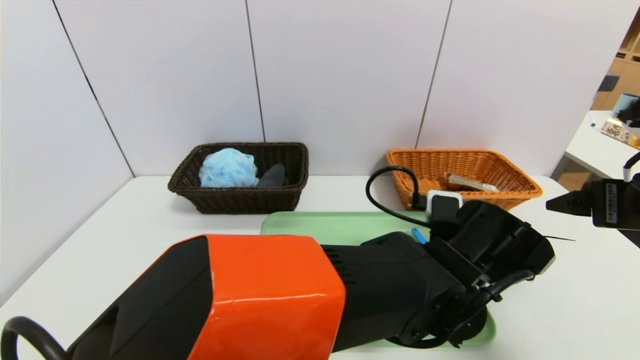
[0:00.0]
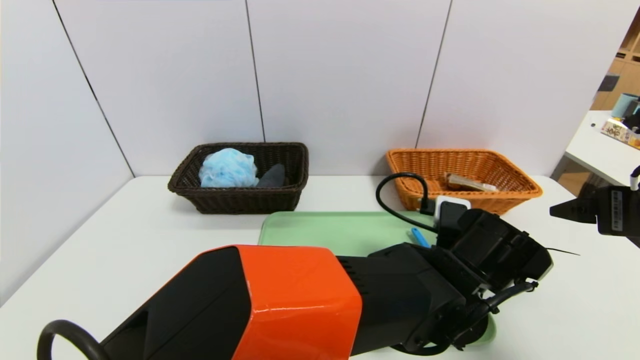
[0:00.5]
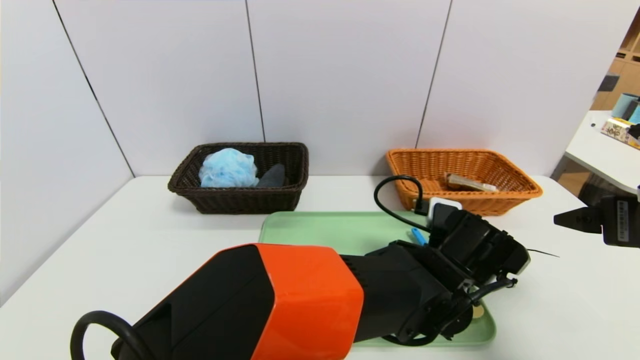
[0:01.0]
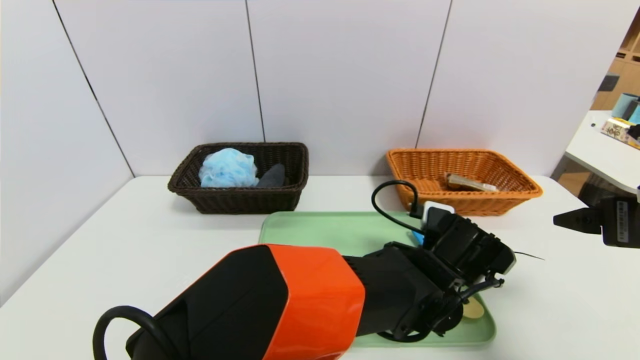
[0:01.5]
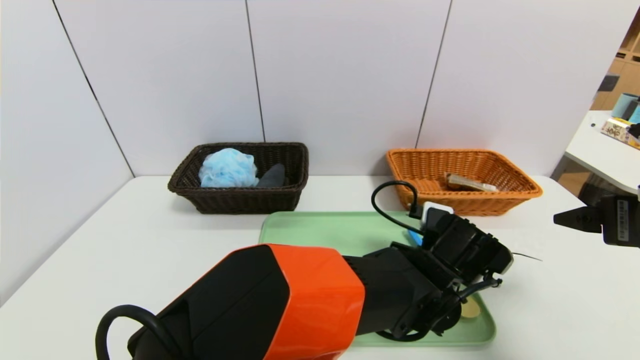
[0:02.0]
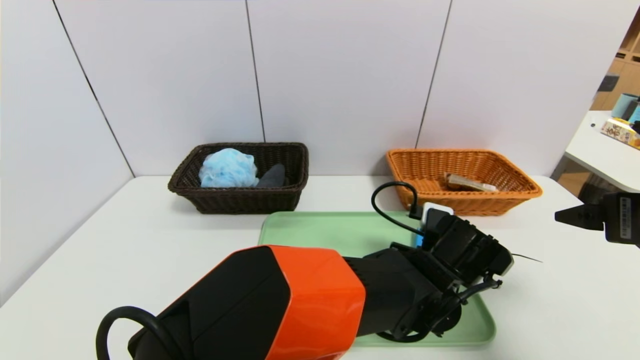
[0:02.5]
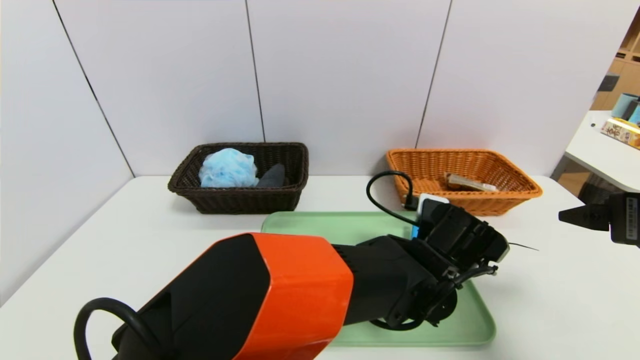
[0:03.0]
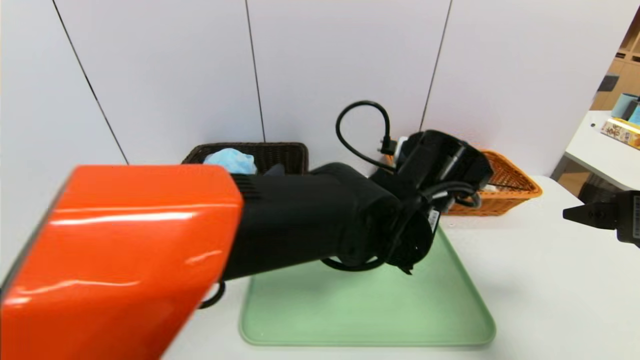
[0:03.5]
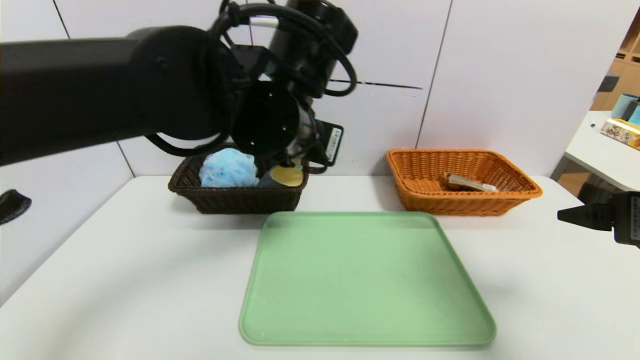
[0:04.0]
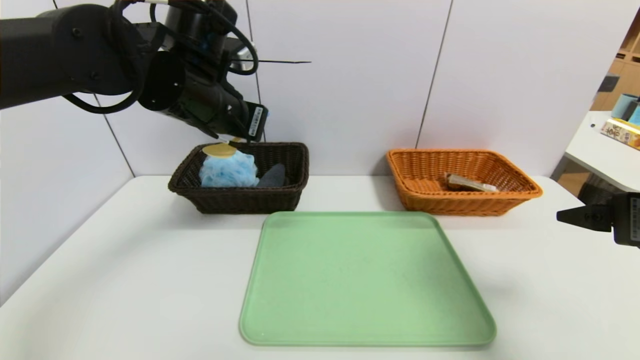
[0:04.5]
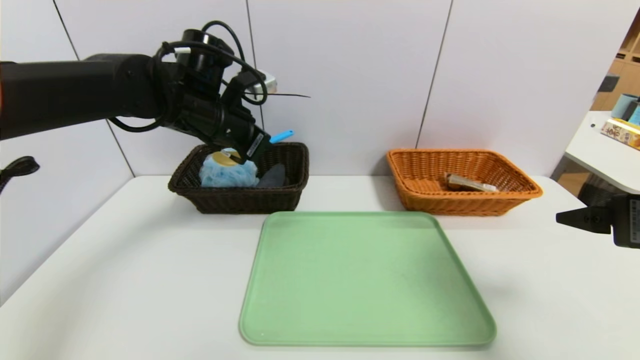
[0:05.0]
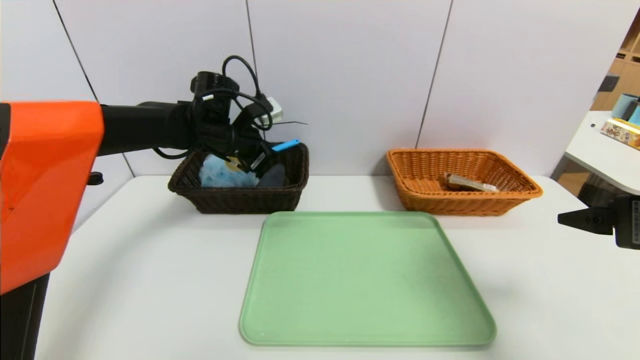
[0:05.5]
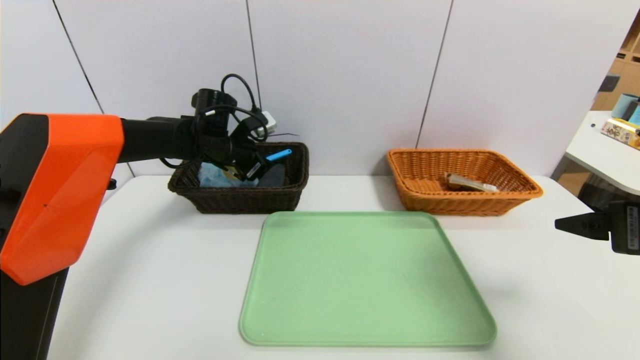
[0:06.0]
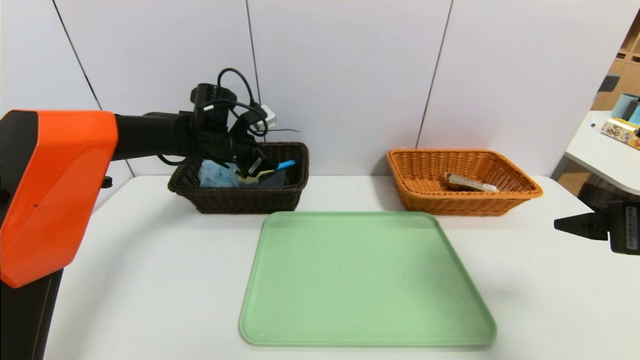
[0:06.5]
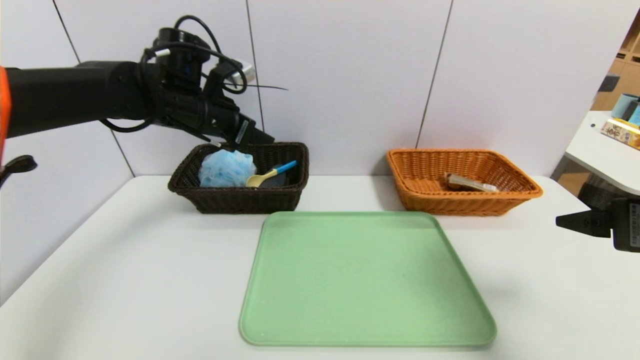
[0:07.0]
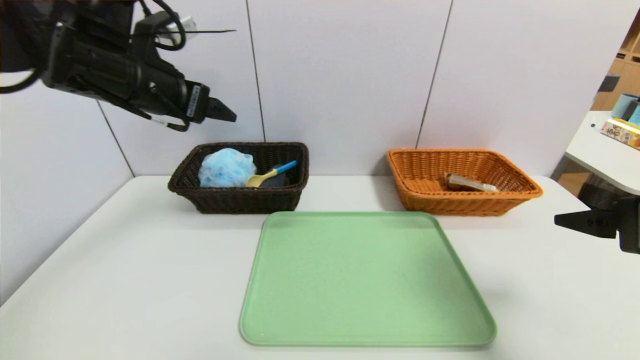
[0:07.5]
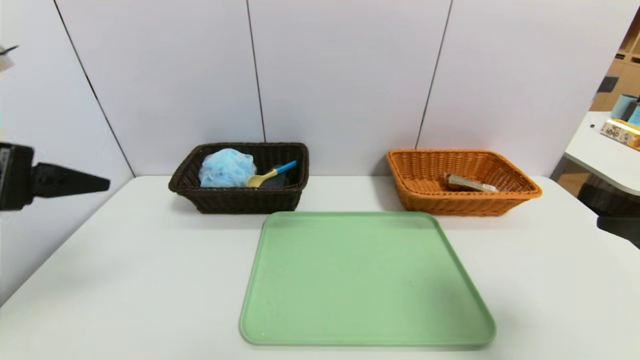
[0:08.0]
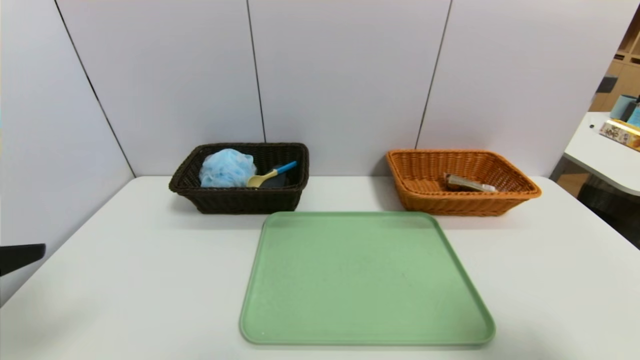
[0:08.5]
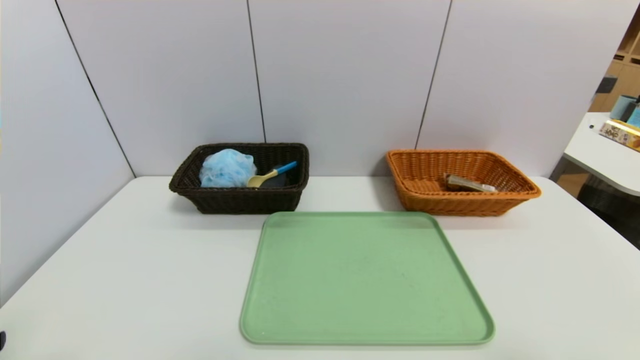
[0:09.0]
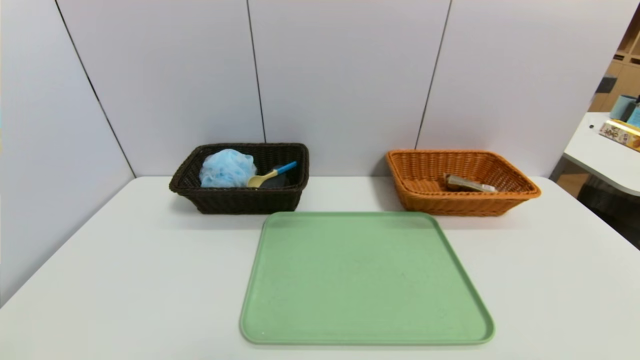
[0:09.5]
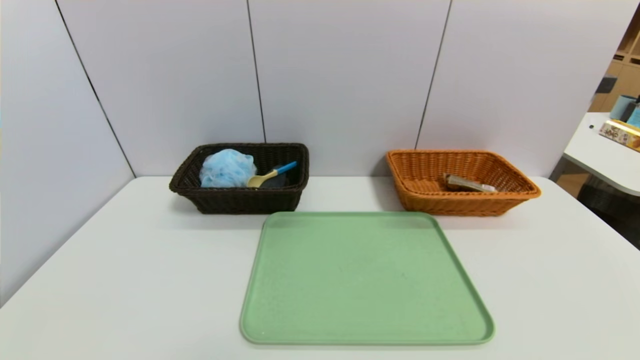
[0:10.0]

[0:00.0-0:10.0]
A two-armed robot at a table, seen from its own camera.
Task of the whole recording: place the food in the right basket with the right gripper, and place the non food items in the left basket with the left gripper.
Step, 0:00.0 to 0:06.5: Grasp the spoon and put it in the left basket.
0:00.0 to 0:02.0: The left gripper ends up some 5 cm from where it was.
0:02.0 to 0:04.0: The left gripper travels upward and to the left by approximately 25 cm, and closes up.
0:04.0 to 0:06.0: The left gripper goes approximately 25 cm forward, to the left and downward.
0:06.0 to 0:08.0: The left gripper heads backward and upward, covering approximately 35 cm, and opens its fingers. The right gripper travels backward by about 5 cm.
0:08.0 to 0:10.0: The two grippers go about 20 cm backward and downward.

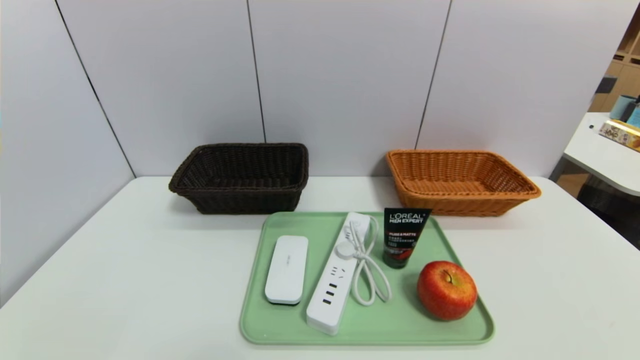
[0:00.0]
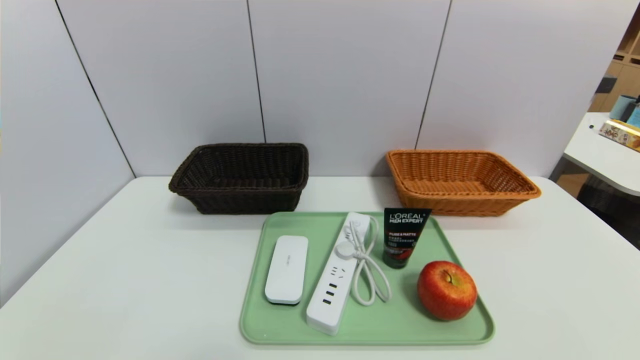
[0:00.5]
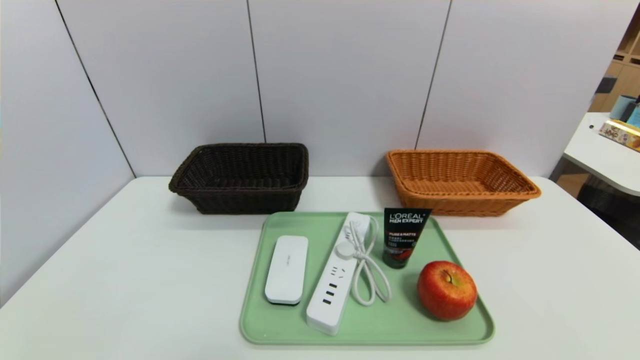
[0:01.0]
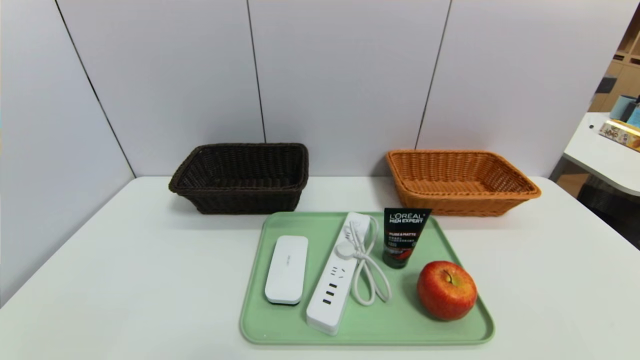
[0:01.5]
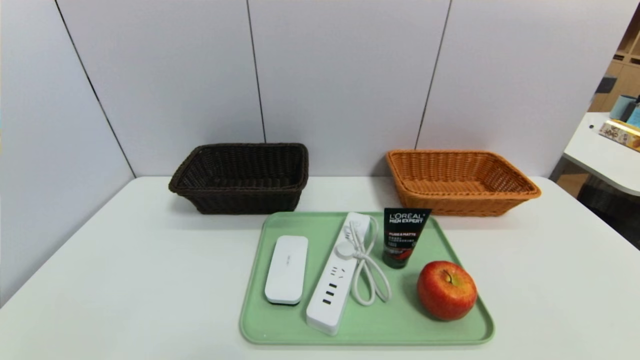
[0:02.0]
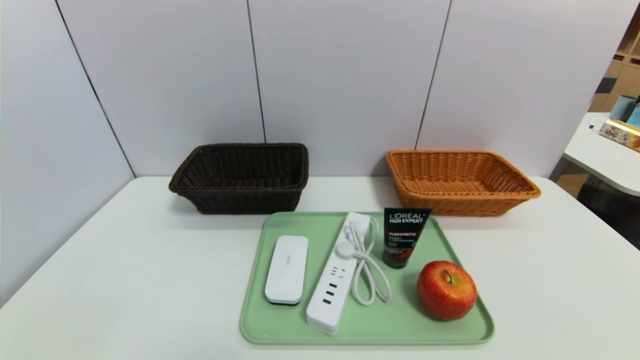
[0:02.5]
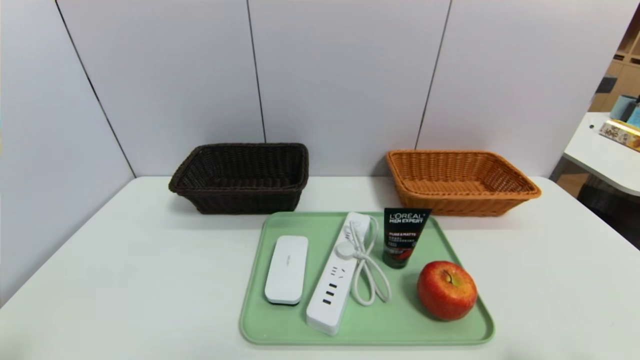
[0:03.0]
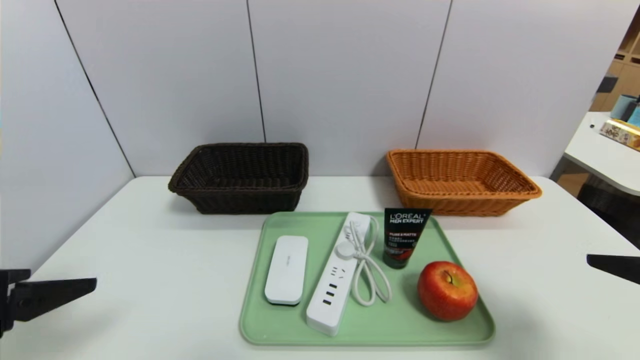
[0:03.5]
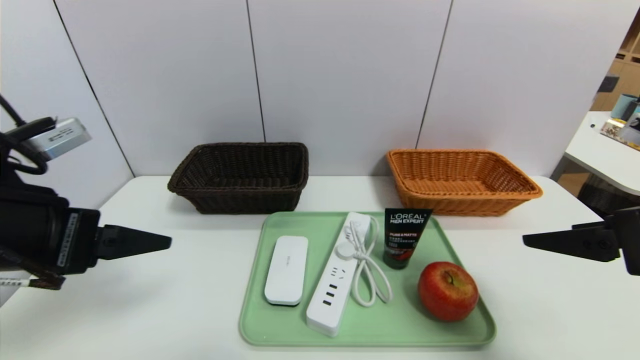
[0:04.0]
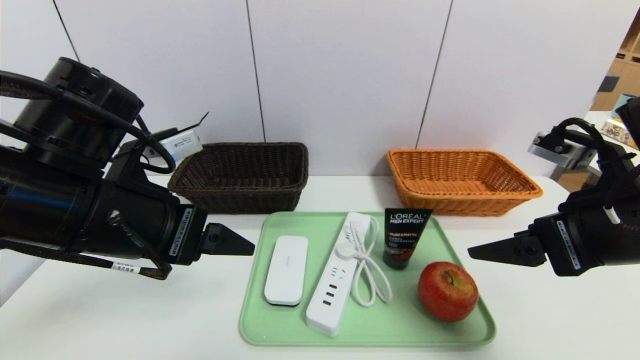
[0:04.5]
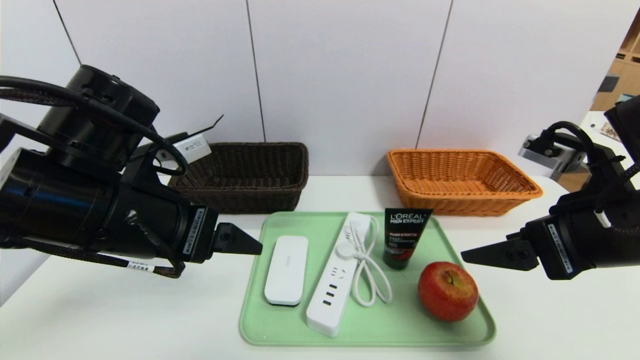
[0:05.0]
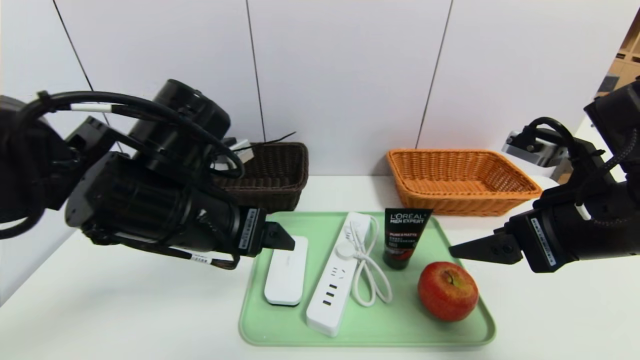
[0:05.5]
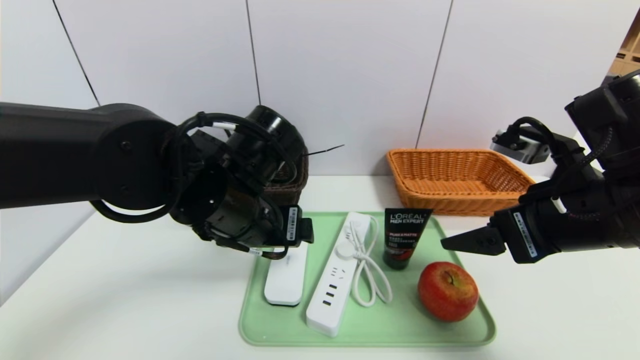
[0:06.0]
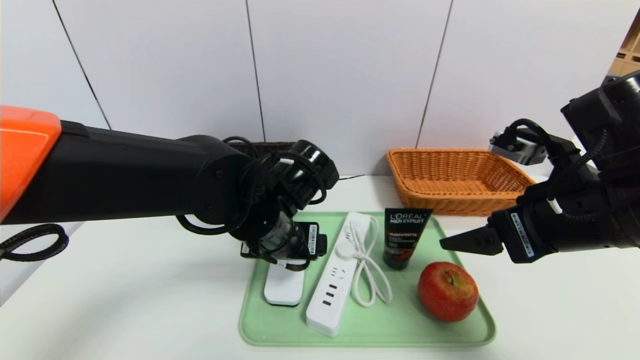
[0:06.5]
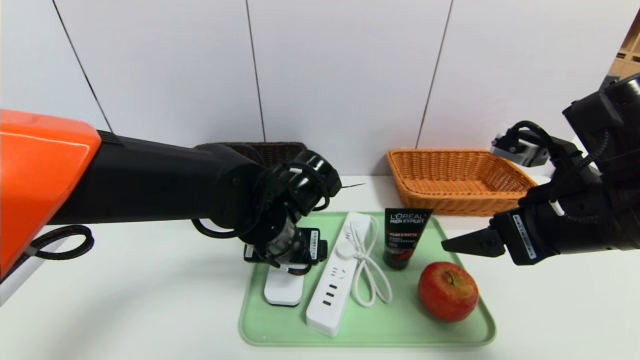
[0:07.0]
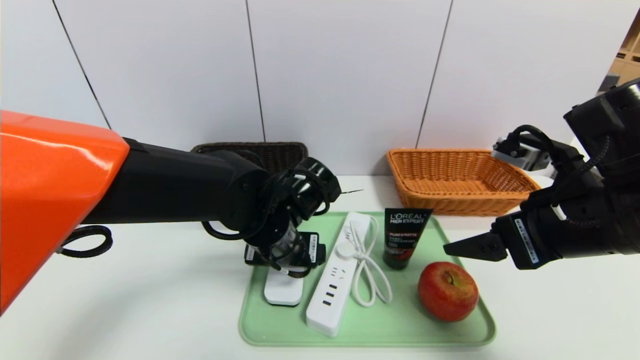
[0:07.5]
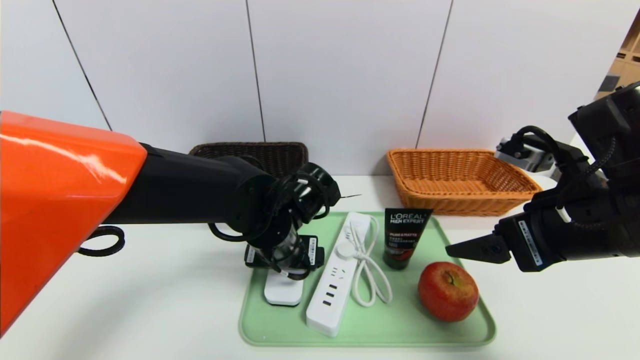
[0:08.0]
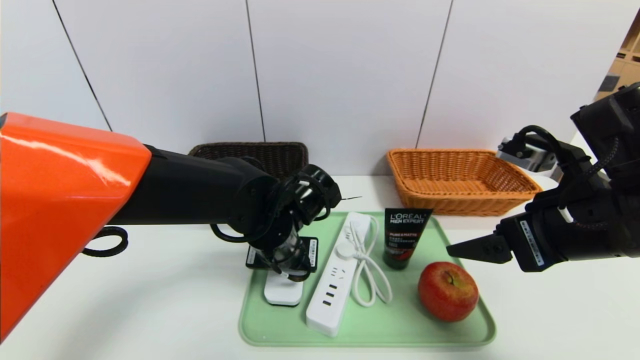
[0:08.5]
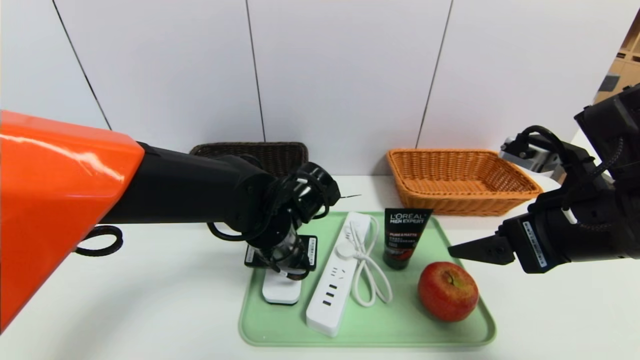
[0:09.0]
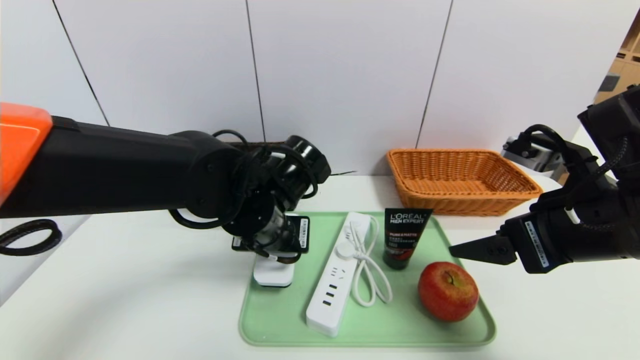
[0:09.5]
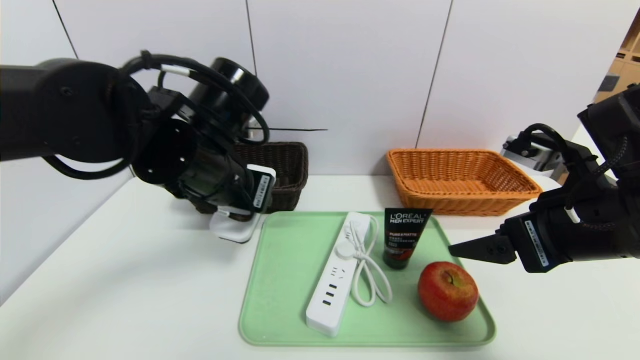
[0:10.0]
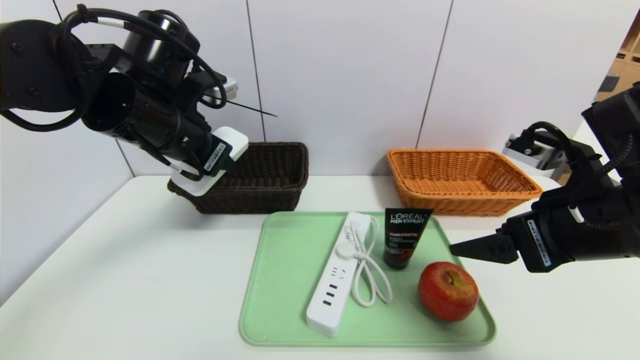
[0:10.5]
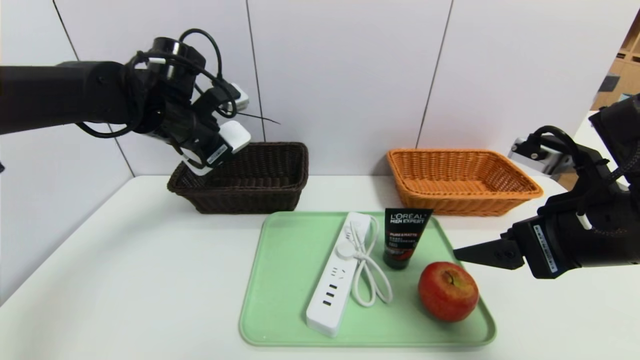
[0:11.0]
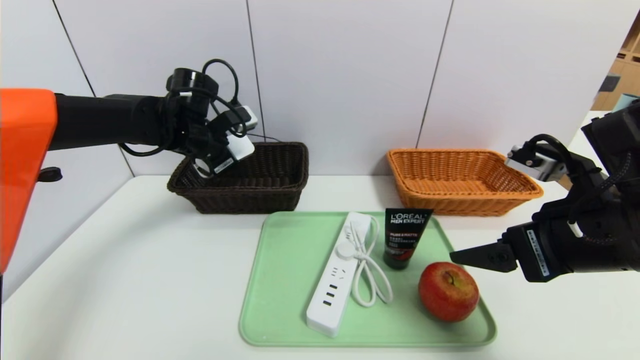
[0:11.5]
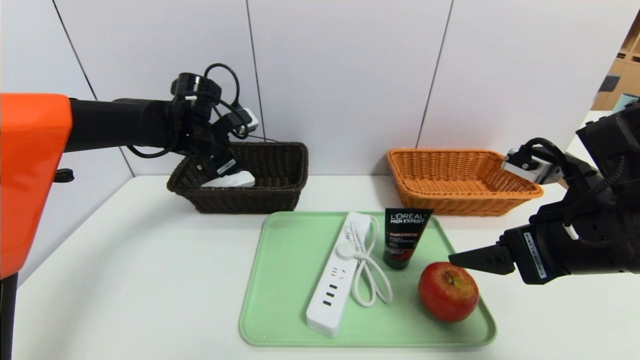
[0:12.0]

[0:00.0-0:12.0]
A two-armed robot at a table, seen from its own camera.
Task of the whole recording: place the food in the right basket with the right gripper, and place the non food items in the left basket with the left gripper.
0:02.0 to 0:04.0: The two grippers go approximately 25 cm upward and forward.
0:04.0 to 0:06.0: The left gripper goes about 20 cm to the right and forward. Meanwhile the right gripper heads to the left, covering roughly 5 cm.
0:06.0 to 0:08.0: The left gripper travels downward by approximately 5 cm.
0:08.0 to 0:10.0: The left gripper shifts roughly 15 cm upward and to the left, and closes its fingers.
0:10.0 to 0:12.0: The left gripper moves forward and to the left, some 20 cm.
